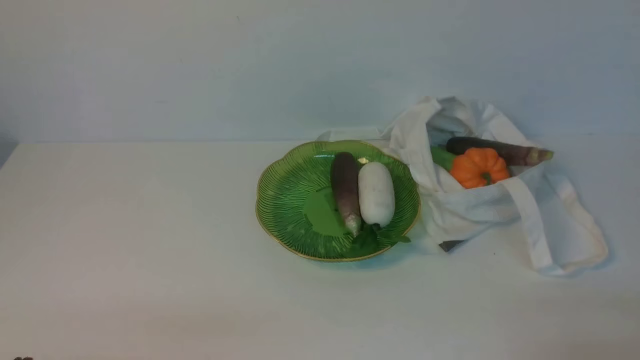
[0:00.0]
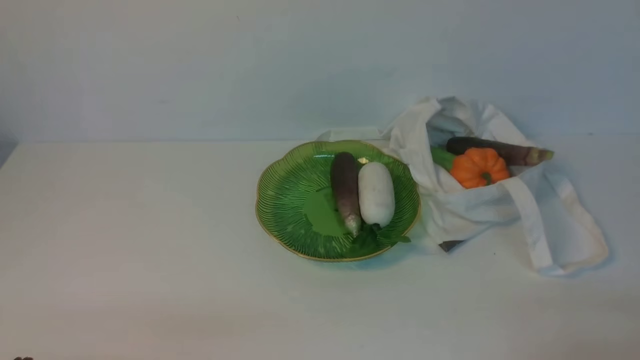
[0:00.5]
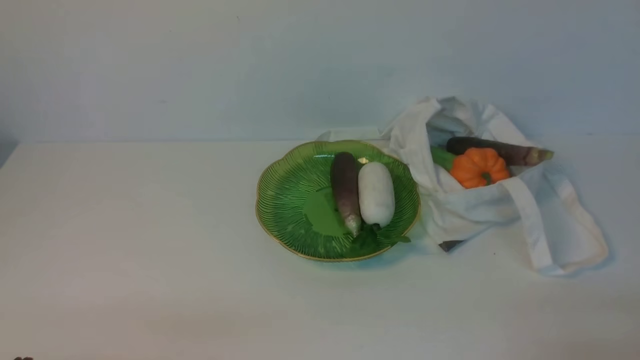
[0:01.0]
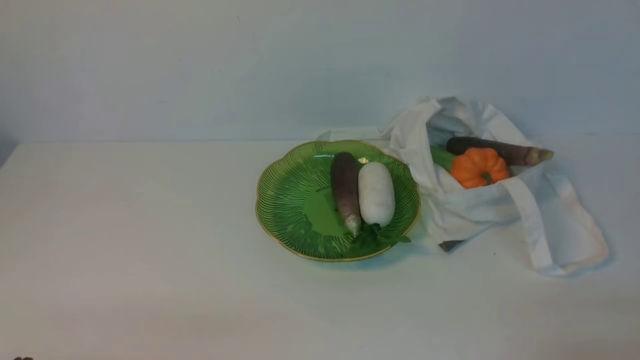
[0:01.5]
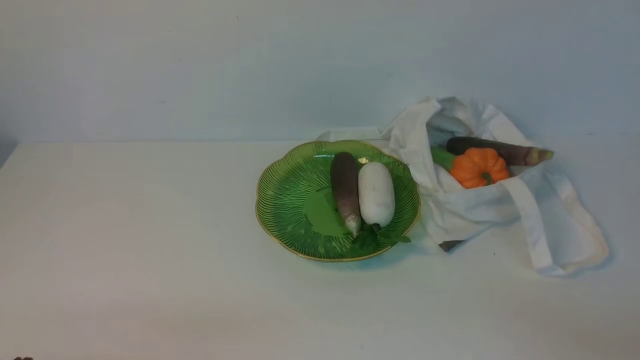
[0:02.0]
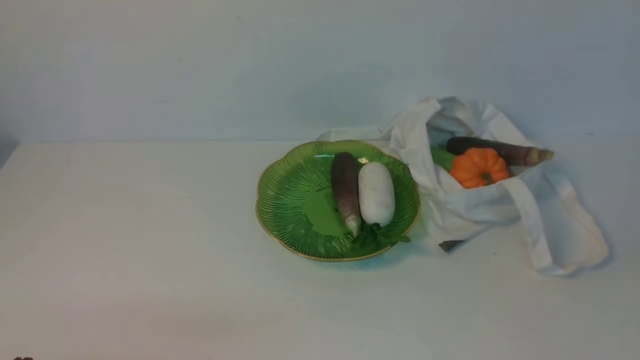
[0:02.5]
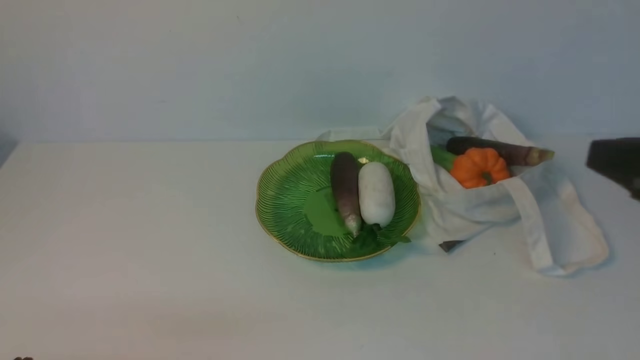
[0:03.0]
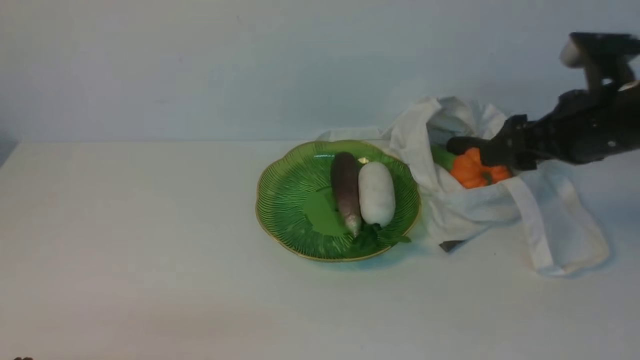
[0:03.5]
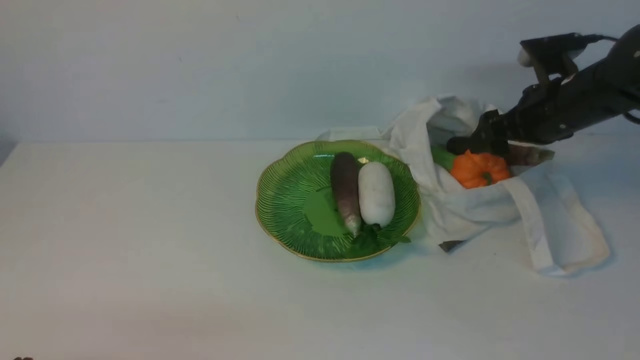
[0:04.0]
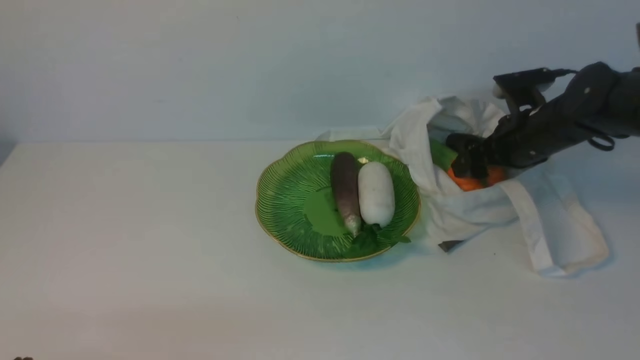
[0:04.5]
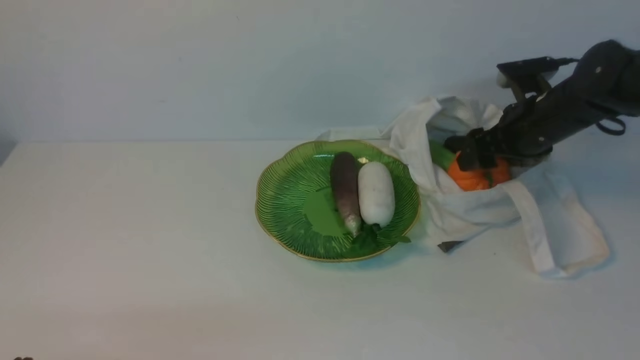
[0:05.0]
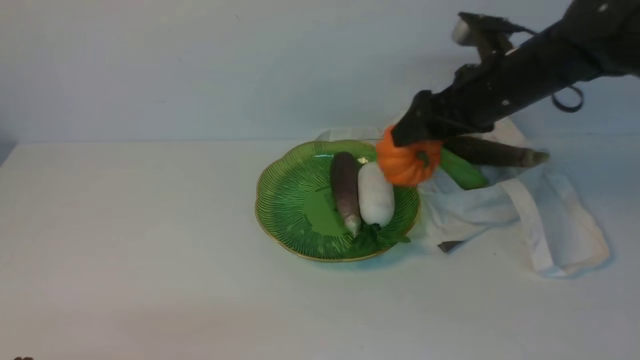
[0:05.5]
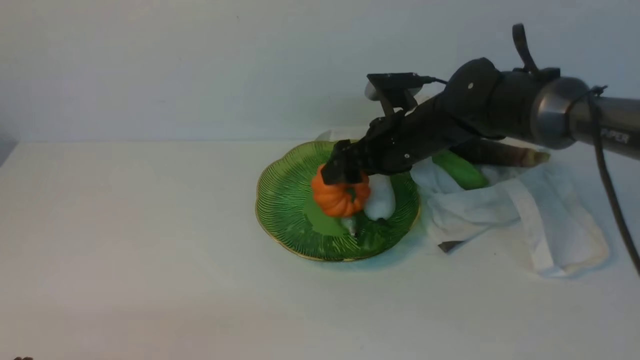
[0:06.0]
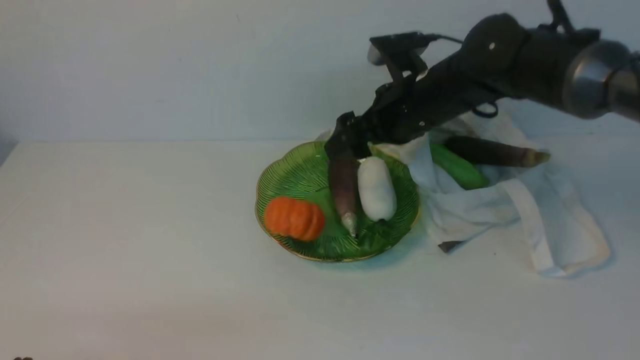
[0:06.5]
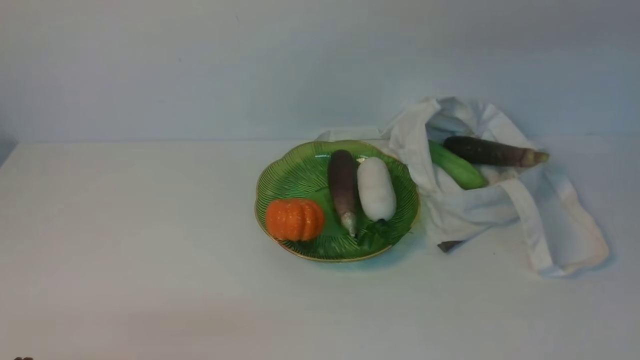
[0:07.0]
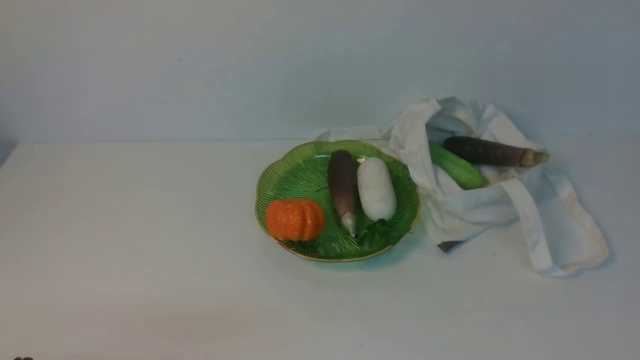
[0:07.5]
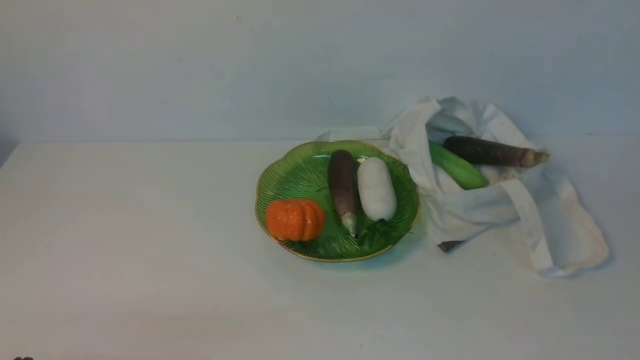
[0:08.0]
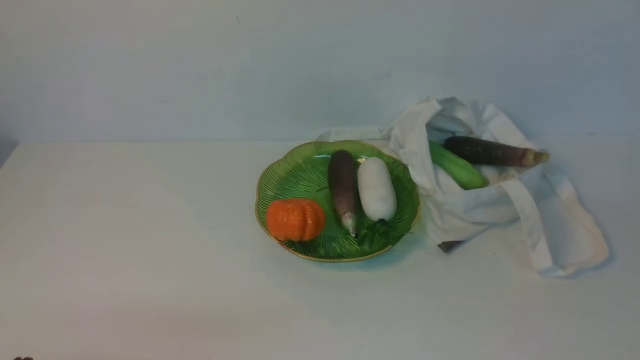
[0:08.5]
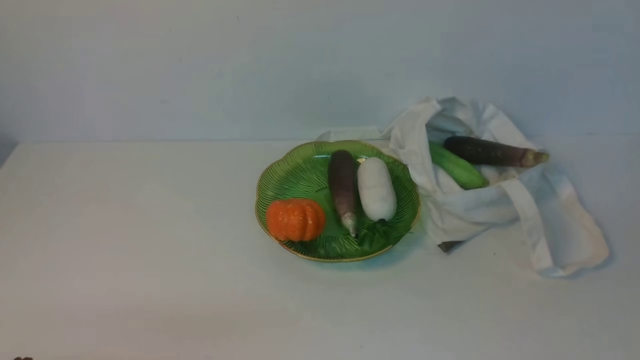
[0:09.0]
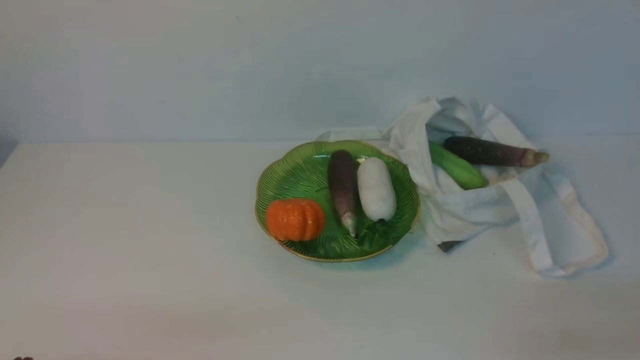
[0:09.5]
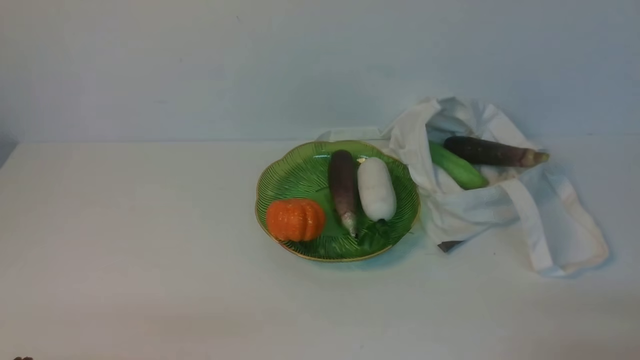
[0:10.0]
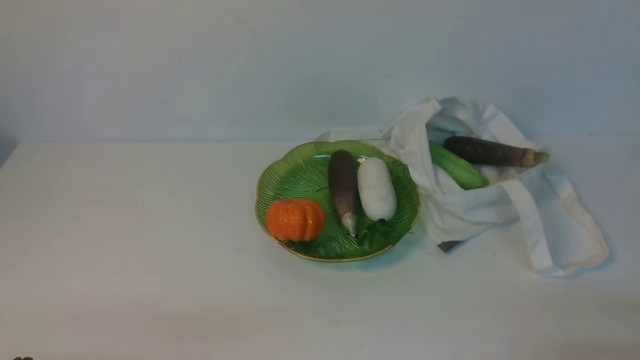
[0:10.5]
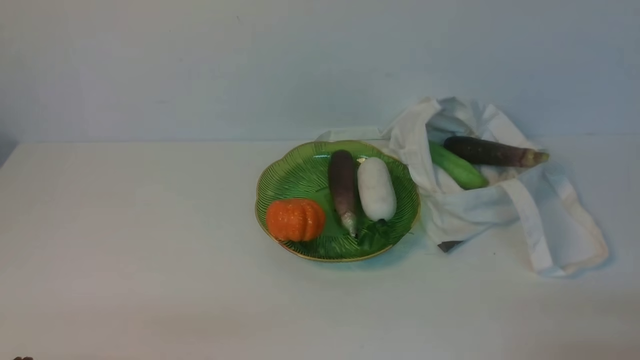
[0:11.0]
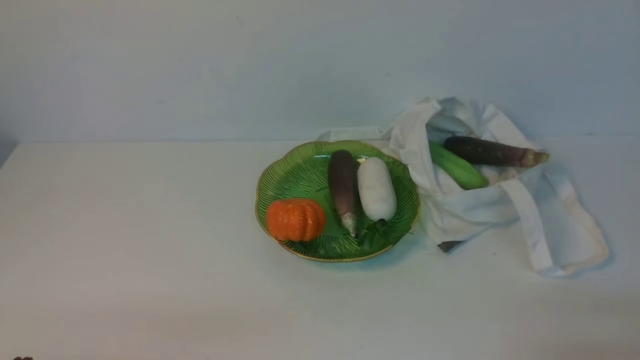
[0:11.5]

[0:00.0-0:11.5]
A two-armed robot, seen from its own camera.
Task of the whole recording: take vegetables from cloth bag on white table place on plate.
Step, 0:00.0 to 0:04.5: Grasp the pumpkin with right gripper.
Step, 0:05.0 to 0:06.0: Place the pumpkin on the plate with right gripper.
0:02.0 to 0:04.0: The right gripper goes about 35 cm forward, and opens up.
0:04.0 to 0:06.0: The right gripper shifts roughly 15 cm to the left.
0:06.0 to 0:07.5: The right gripper is displaced backward, upward and to the right by roughly 50 cm, and closes.
